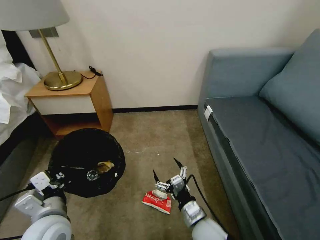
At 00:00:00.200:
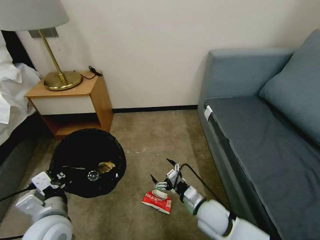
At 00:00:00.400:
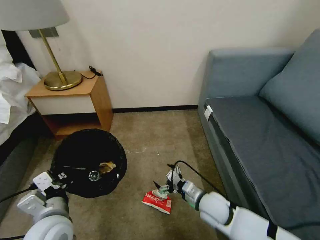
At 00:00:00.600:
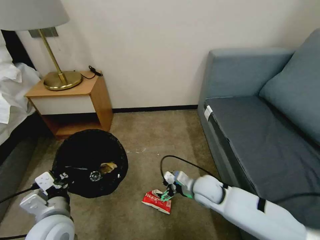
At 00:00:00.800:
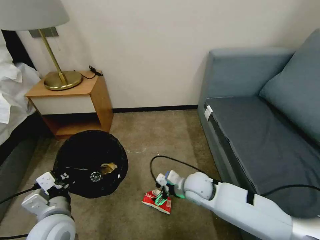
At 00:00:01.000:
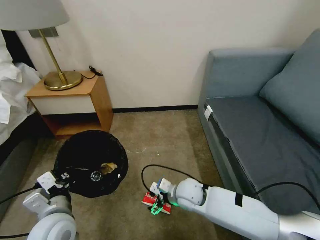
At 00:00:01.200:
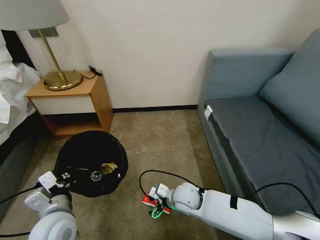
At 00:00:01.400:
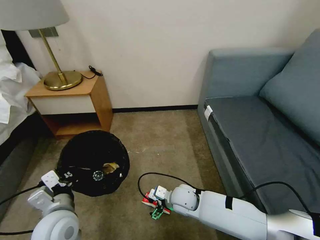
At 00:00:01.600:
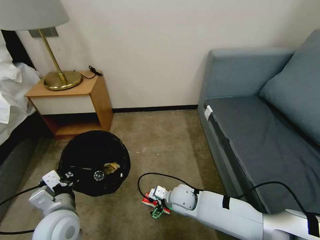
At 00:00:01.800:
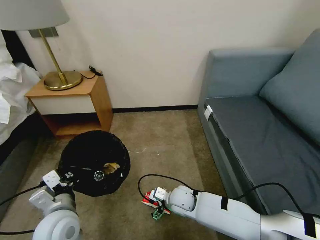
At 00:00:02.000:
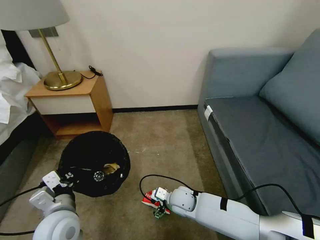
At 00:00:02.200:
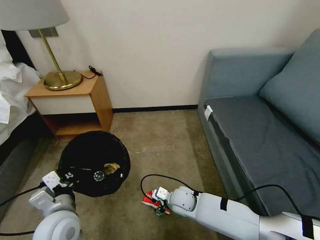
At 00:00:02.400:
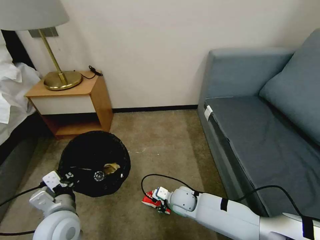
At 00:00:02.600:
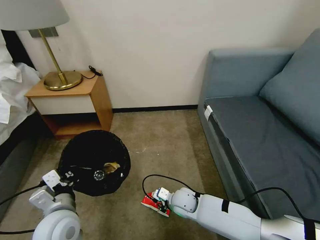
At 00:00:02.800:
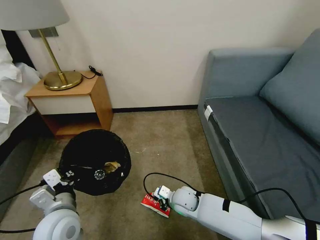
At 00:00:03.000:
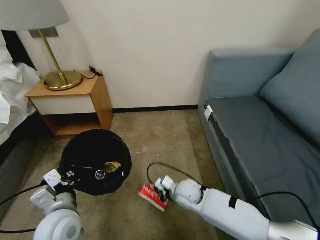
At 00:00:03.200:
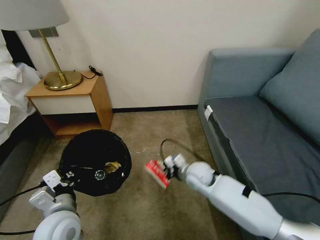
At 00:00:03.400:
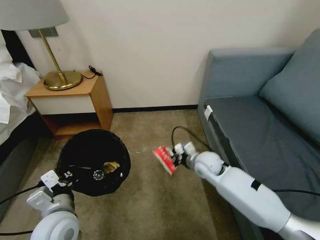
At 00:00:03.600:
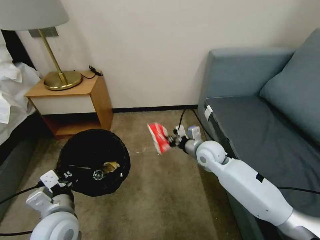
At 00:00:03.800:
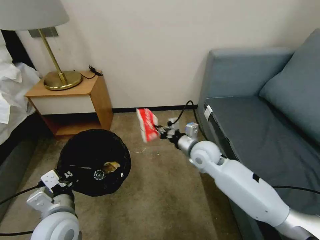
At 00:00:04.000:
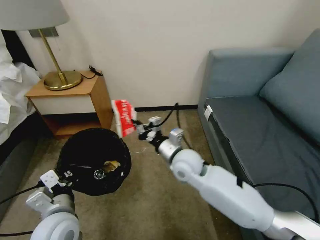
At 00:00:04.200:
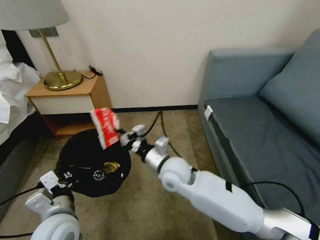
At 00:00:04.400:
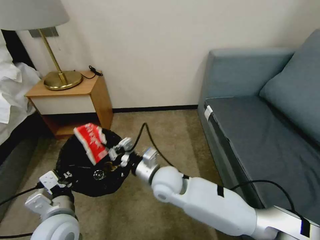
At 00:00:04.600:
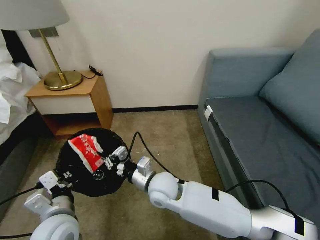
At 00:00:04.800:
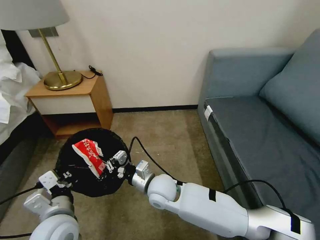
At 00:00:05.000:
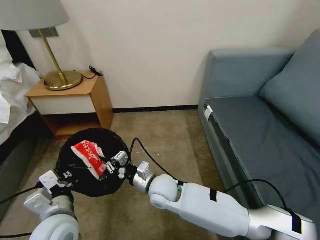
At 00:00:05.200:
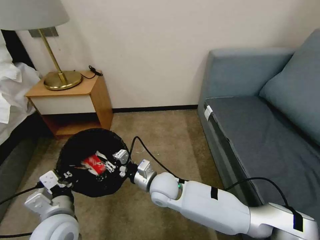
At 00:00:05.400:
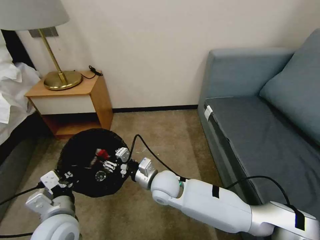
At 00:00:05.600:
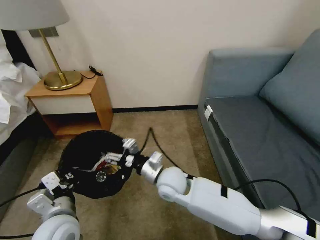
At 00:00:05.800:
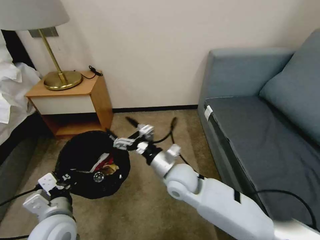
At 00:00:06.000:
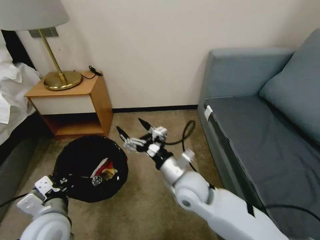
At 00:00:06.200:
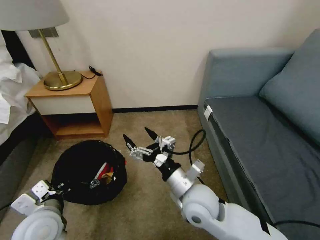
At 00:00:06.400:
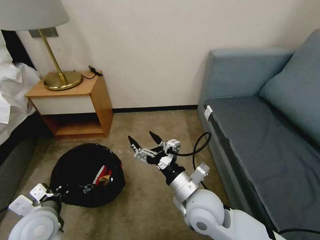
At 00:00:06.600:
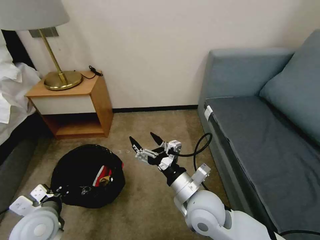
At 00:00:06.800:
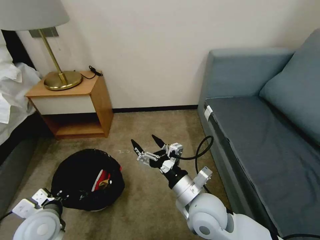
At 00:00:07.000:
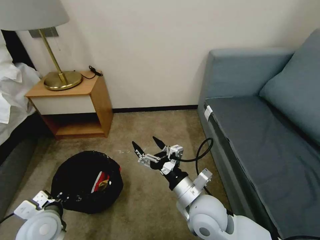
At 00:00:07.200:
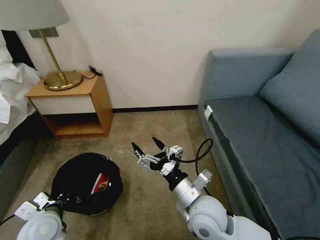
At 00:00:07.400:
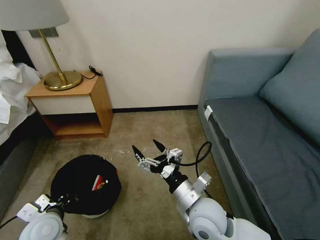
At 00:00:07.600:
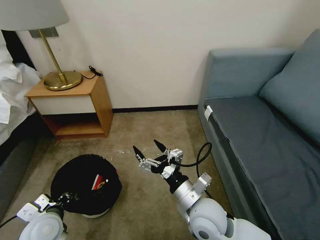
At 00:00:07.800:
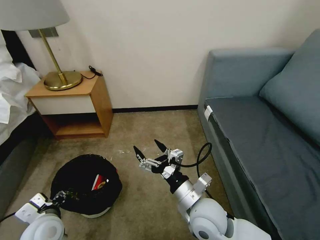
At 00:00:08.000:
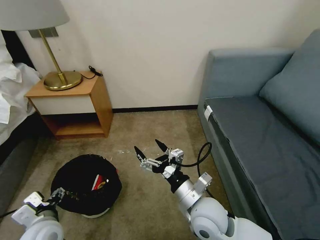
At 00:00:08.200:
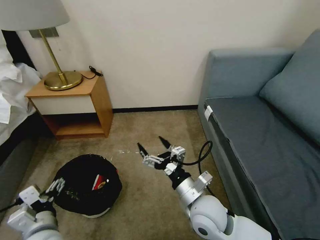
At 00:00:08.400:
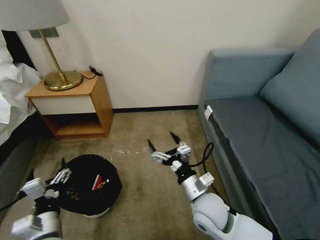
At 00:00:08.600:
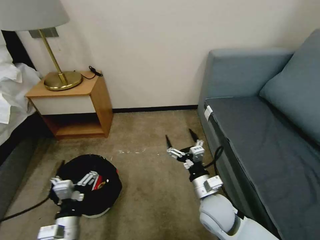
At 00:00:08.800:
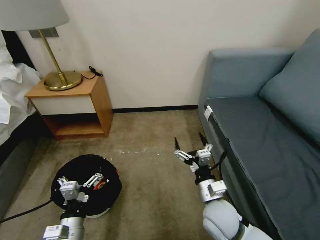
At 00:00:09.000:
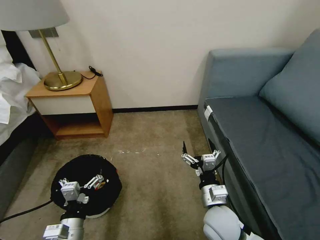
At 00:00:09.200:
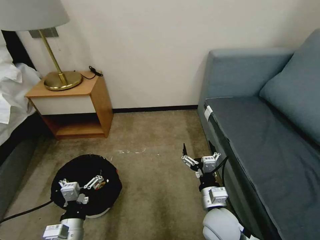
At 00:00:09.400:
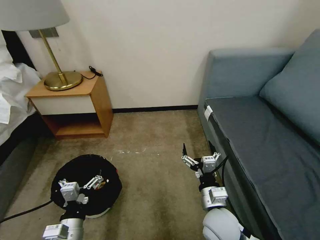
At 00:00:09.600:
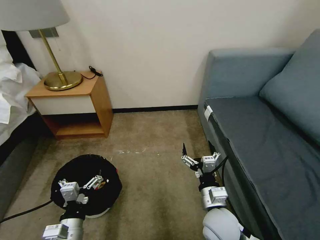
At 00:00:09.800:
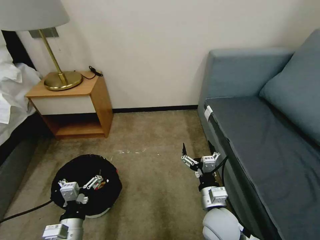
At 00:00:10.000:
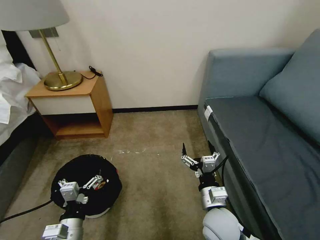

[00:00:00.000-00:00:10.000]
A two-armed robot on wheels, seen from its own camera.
Task of the whole recording: Pick up the trash bin, then pick up the garbage on the floor and place it into the trash bin.
00:00:00.000 to 00:00:01.400: The right gripper goes about 15 cm forward.
00:00:01.400 to 00:00:02.800: The right gripper closes.
00:00:02.800 to 00:00:04.200: The right gripper goes approximately 20 cm upward.
00:00:04.200 to 00:00:05.800: The right gripper opens.
00:00:05.800 to 00:00:07.200: The left gripper moves to the left and downward, some 10 cm, while the right gripper travels backward and to the right by roughly 10 cm.
00:00:07.200 to 00:00:08.600: The right gripper moves roughly 5 cm, while the left gripper moves to the right and backward, roughly 10 cm, and opens its fingers.
00:00:08.600 to 00:00:10.000: The grippers make only small movements.

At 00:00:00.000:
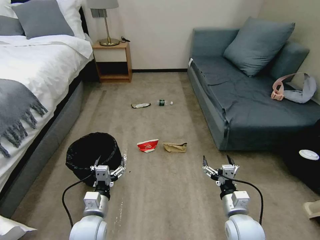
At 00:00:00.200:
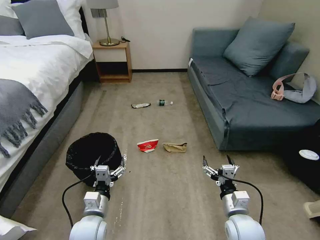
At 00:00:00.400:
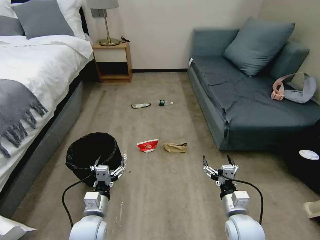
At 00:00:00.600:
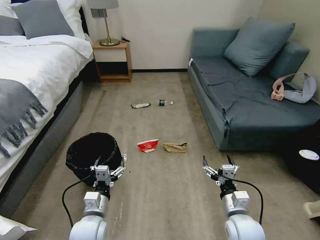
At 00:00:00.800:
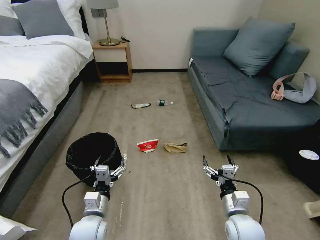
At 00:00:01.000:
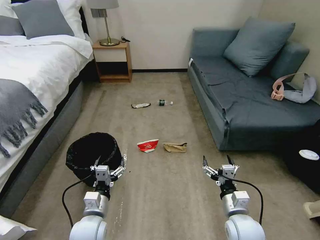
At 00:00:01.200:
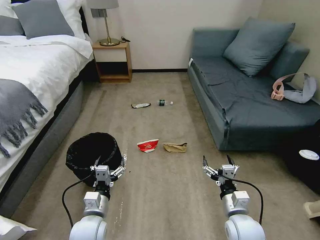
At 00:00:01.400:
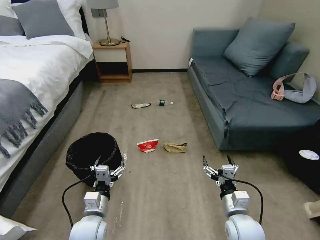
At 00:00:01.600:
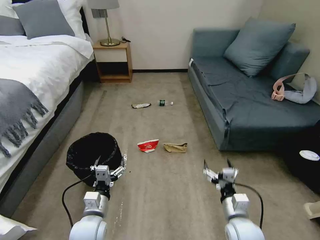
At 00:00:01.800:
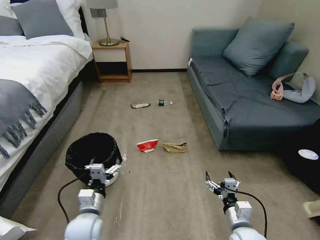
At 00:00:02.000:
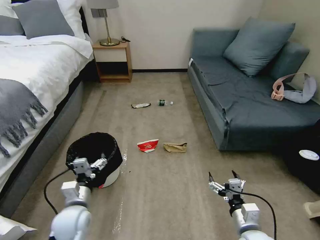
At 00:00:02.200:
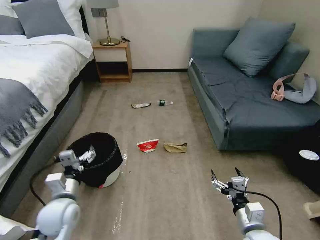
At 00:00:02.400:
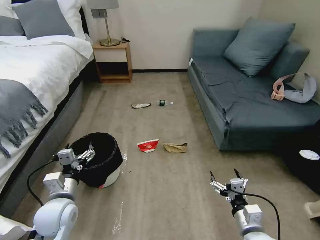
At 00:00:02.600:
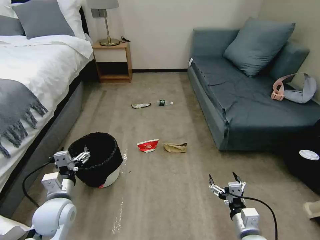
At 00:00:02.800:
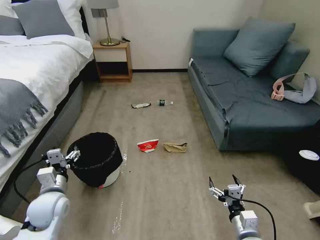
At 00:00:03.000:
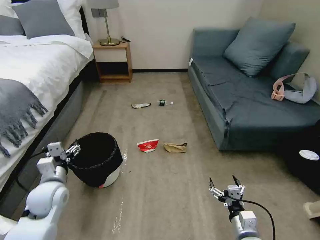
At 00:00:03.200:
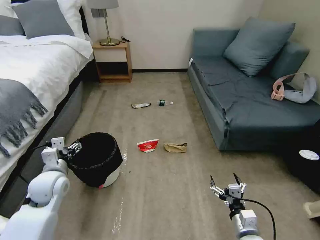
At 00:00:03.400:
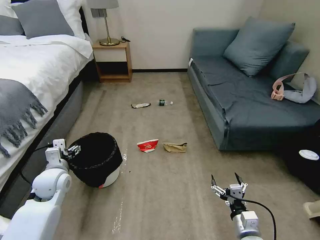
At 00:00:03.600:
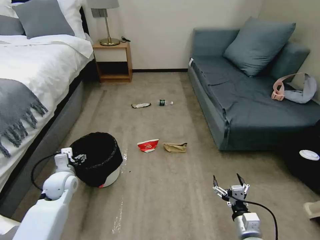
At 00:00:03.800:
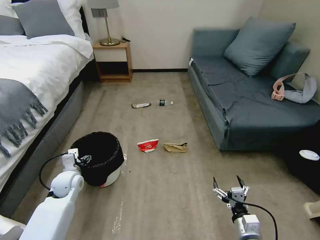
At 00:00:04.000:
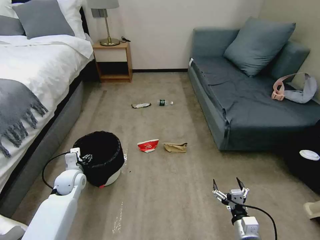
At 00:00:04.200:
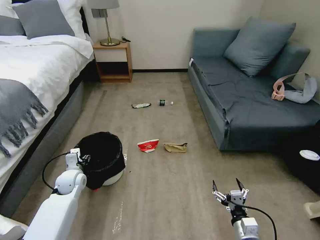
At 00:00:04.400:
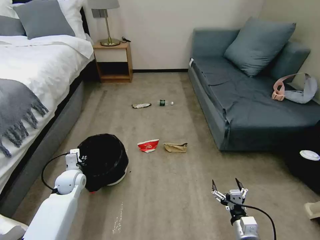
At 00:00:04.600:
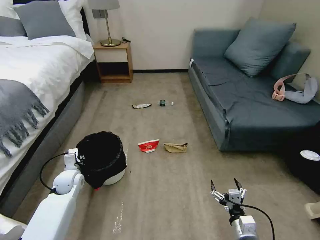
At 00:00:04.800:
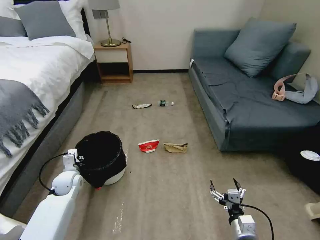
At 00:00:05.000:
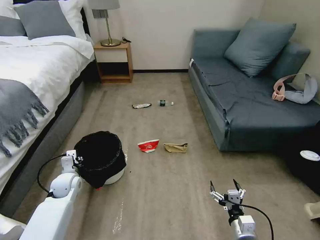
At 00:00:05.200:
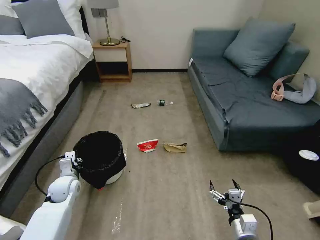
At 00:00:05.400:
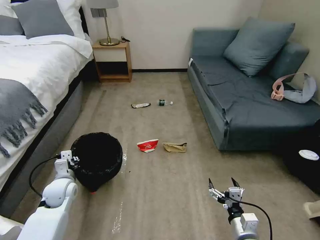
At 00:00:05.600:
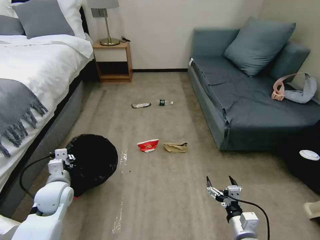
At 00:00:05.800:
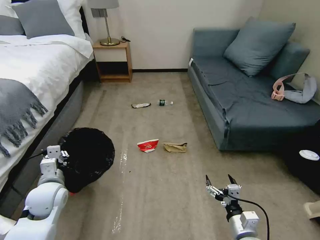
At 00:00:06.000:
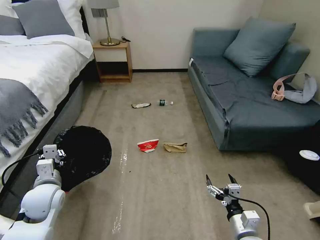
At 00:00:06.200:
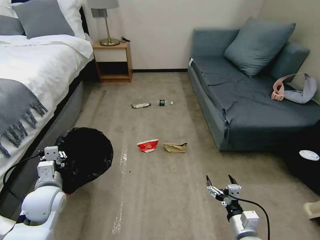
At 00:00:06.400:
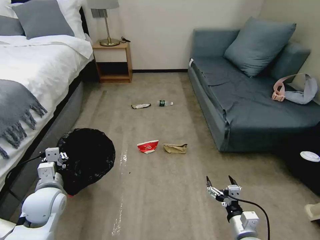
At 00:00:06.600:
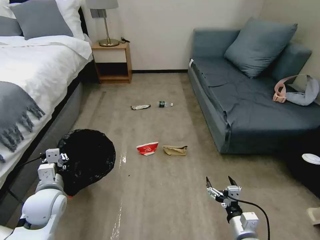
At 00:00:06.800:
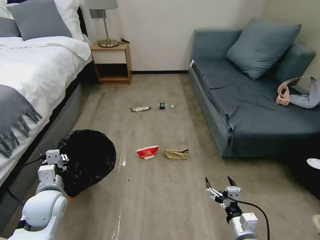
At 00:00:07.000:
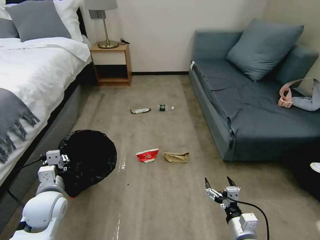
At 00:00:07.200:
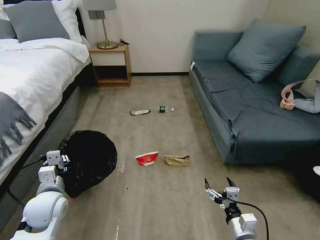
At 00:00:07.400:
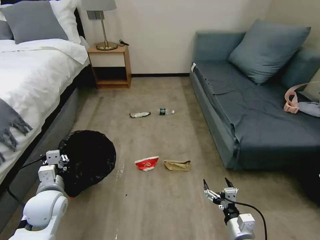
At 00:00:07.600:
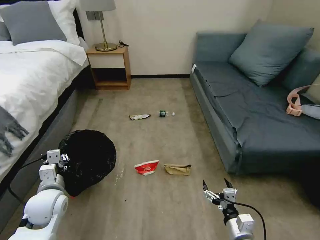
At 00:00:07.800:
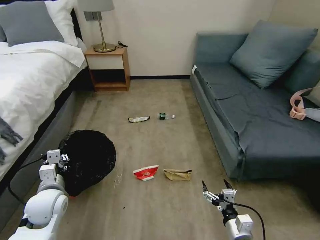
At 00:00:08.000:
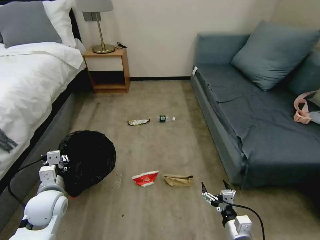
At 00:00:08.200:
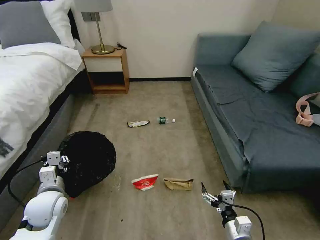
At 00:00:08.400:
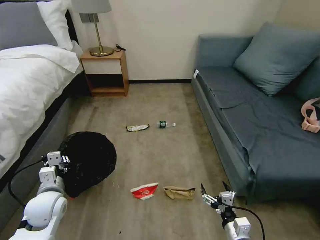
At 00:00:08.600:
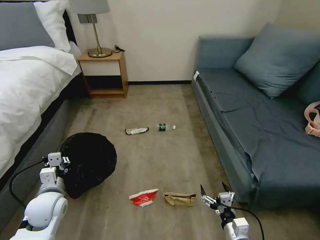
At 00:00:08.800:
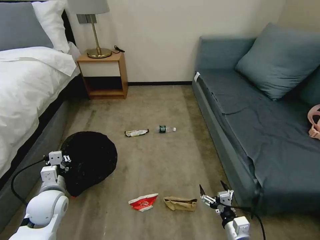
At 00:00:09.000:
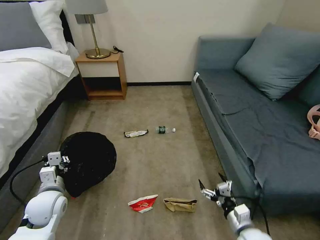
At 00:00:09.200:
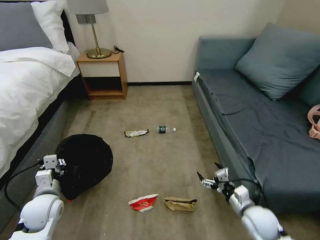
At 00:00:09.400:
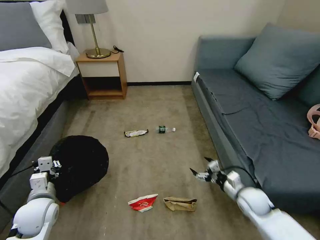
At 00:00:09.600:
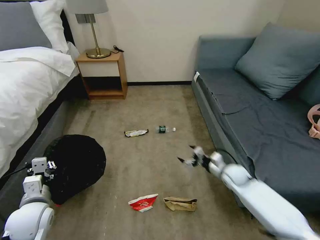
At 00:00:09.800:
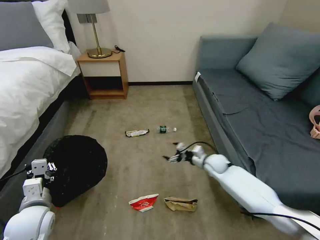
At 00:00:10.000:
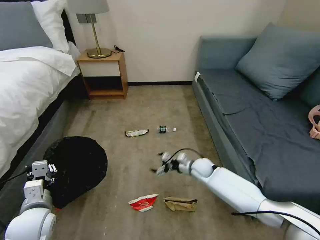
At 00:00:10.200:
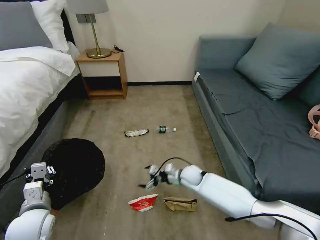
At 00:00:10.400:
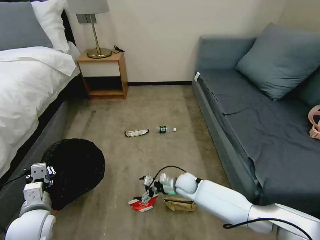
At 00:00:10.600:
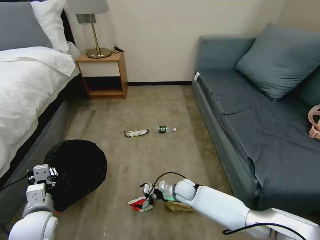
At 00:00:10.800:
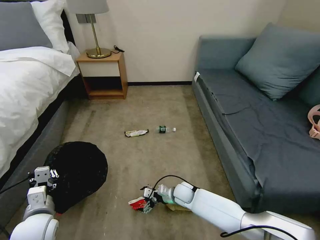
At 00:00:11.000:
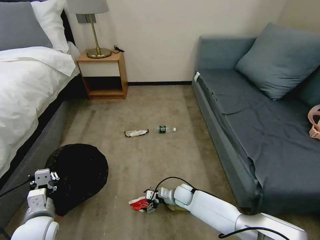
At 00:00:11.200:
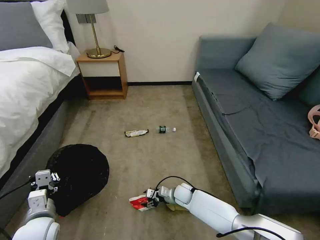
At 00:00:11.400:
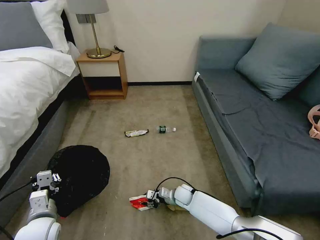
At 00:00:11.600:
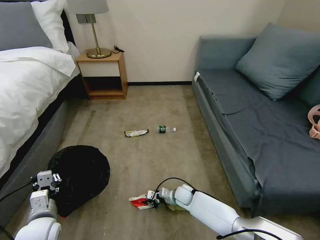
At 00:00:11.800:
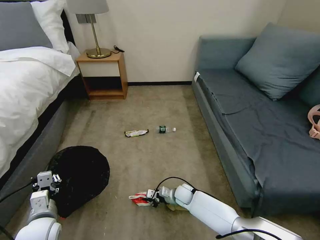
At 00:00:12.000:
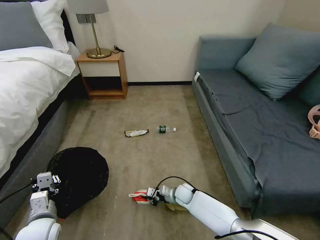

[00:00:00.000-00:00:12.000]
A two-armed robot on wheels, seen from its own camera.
Task of the whole recording: Pick up the trash bin, then pick up the garbage on the floor and place it into the trash bin.
00:00:01.600 to 00:00:03.000: The left gripper moves to the left, forward and upward, approximately 15 cm; the right gripper heads backward, covering about 5 cm.
00:00:03.000 to 00:00:04.400: The left gripper goes approximately 15 cm downward and forward, and closes.
00:00:04.400 to 00:00:06.000: The left gripper goes approximately 15 cm backward and upward, and closes up.
00:00:09.000 to 00:00:10.400: The left gripper moves backward, approximately 5 cm; the right gripper is displaced forward and to the left by about 30 cm.
00:00:10.400 to 00:00:12.000: The right gripper is displaced downward by about 10 cm, and closes its fingers.
